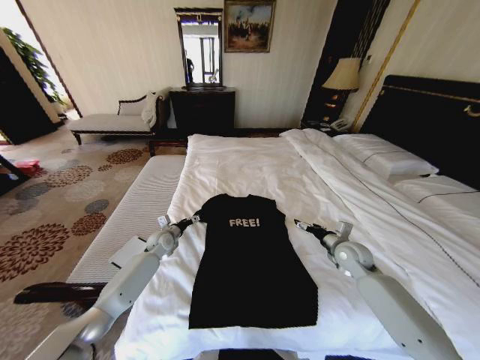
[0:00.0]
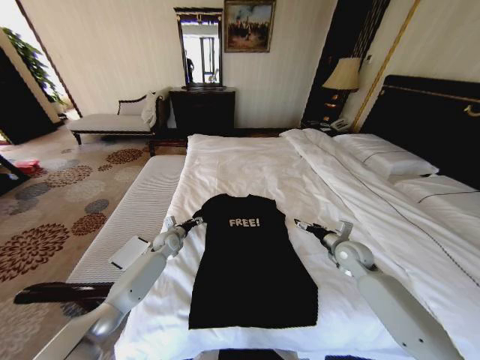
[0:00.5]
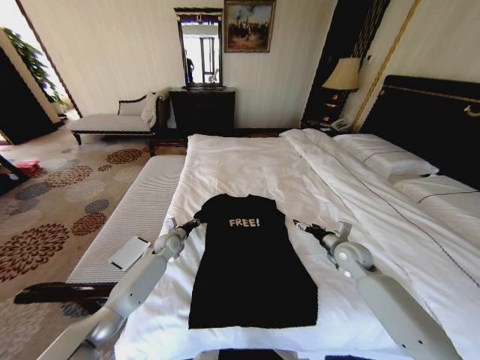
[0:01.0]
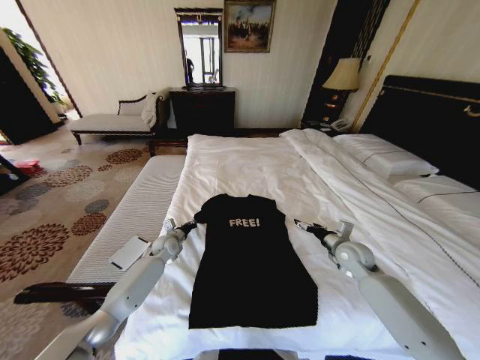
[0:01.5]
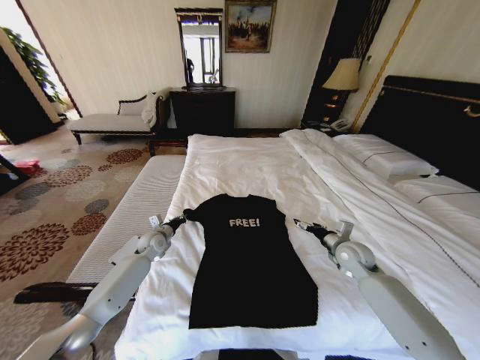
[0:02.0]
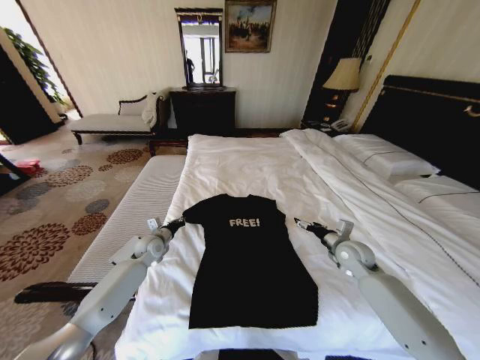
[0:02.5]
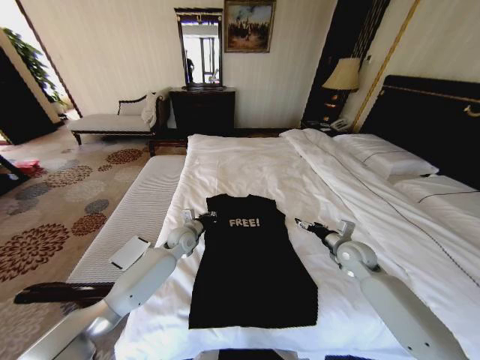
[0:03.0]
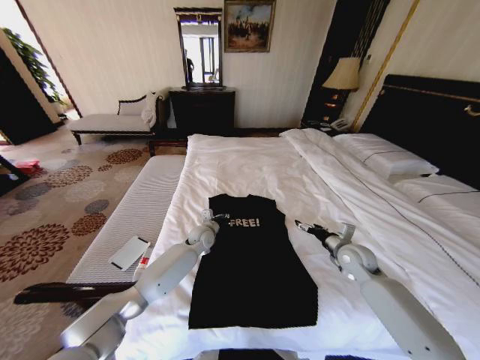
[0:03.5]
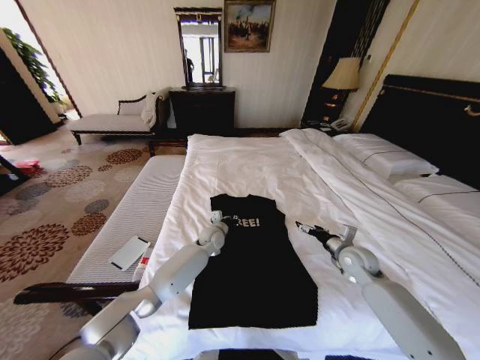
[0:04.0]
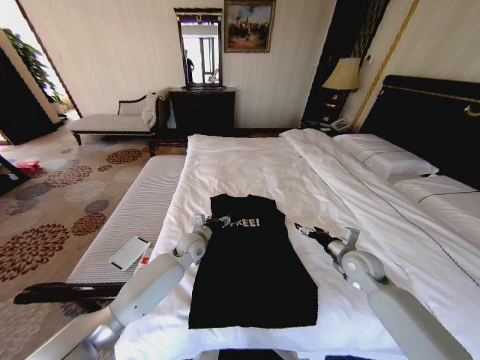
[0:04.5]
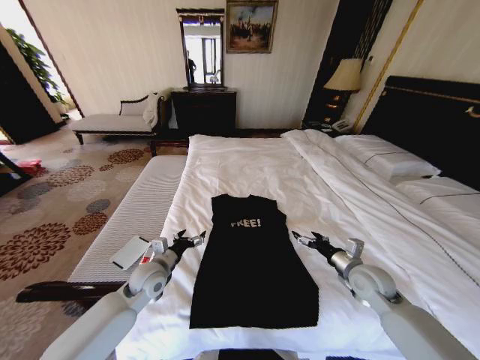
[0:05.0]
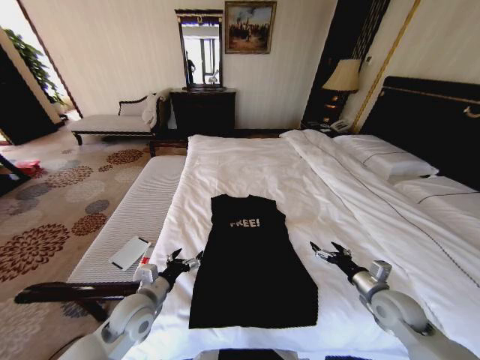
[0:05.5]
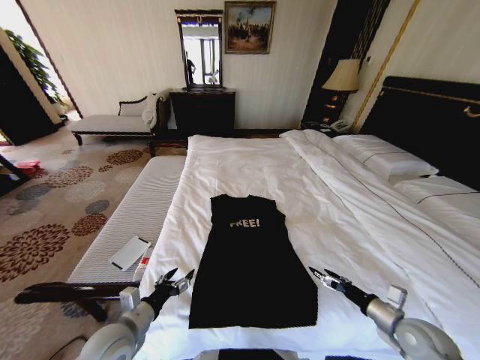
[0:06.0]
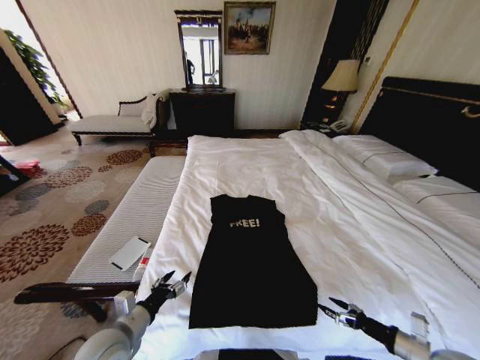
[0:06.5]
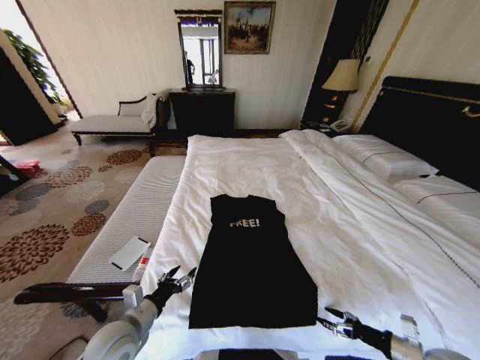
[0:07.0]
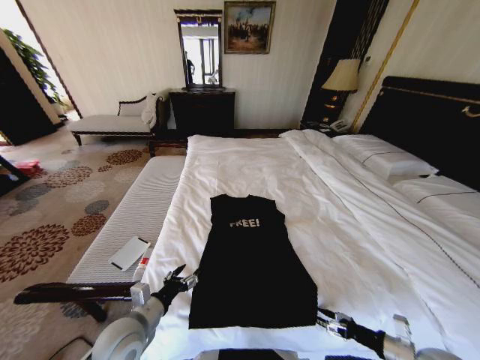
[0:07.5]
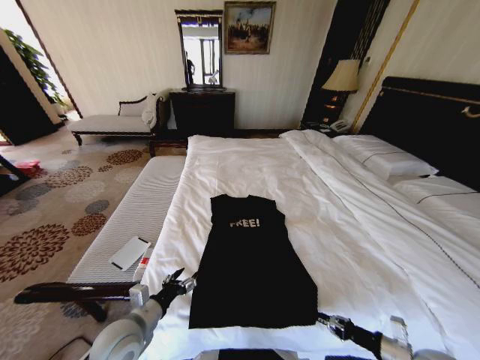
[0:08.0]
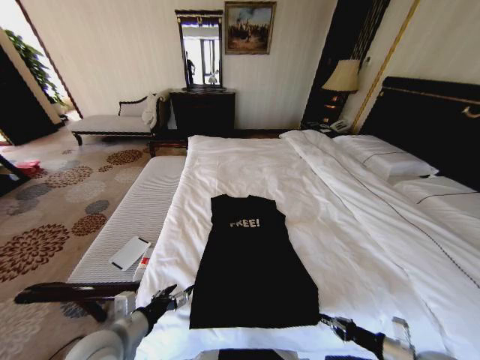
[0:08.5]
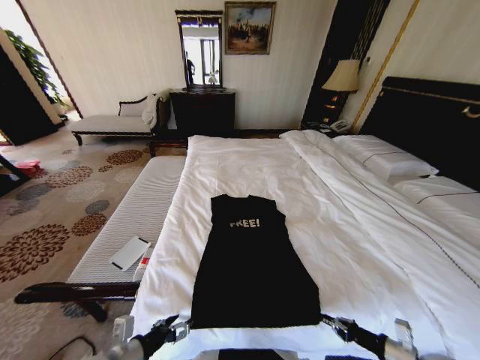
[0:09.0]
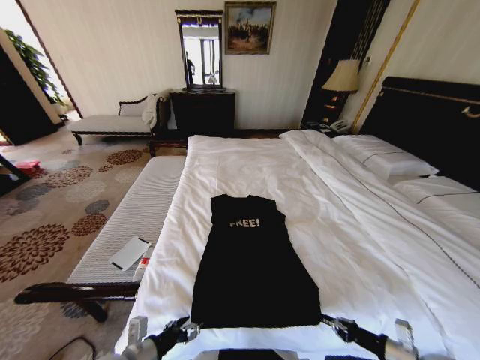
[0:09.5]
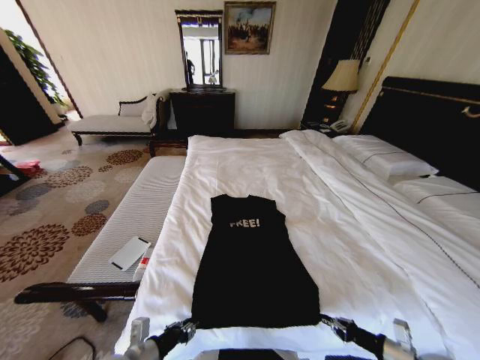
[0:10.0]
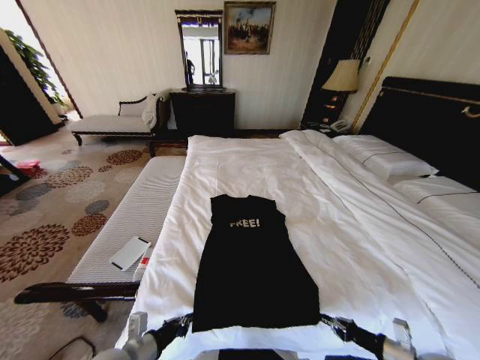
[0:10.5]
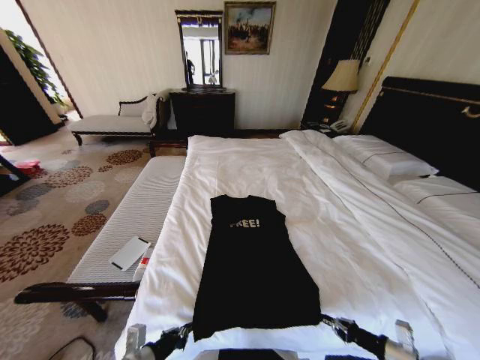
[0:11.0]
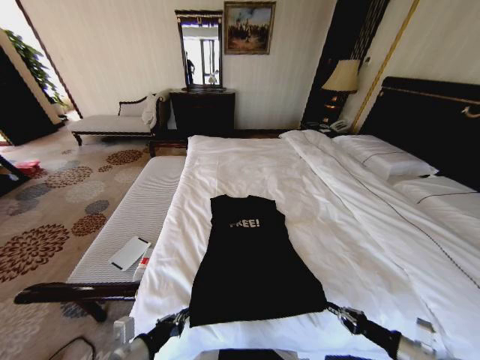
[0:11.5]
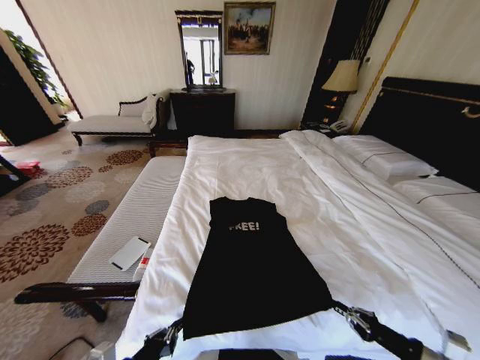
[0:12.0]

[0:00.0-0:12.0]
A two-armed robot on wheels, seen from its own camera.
Task of the whole recording: Fold the clothes on the bed.
0:00.0 to 0:02.0: The left gripper closes its fingers.
0:02.0 to 0:04.0: The left gripper shifts roughly 25 cm to the right.
0:04.0 to 0:06.0: The right gripper shifts approximately 20 cm backward, while the left gripper travels backward and to the left by some 35 cm, and opens up.
0:06.0 to 0:08.0: The right gripper is displaced backward by roughly 5 cm, and closes its fingers.
0:08.0 to 0:10.0: The left gripper shifts roughly 5 cm backward, and closes its fingers.
0:10.0 to 0:12.0: The left gripper heads upward and backward, covering about 10 cm, and closes its fingers, while the right gripper is displaced upward by about 10 cm.

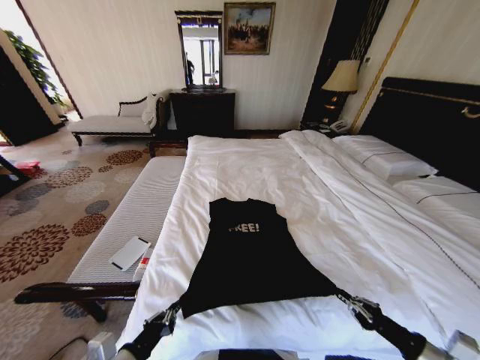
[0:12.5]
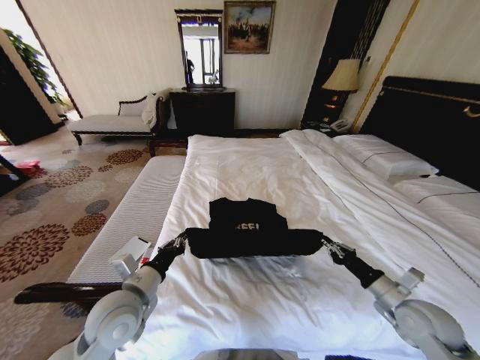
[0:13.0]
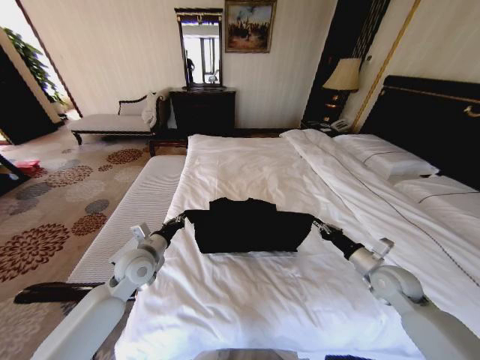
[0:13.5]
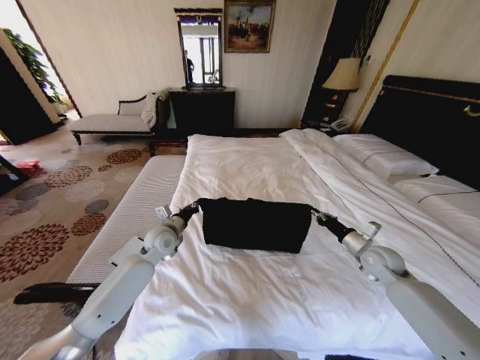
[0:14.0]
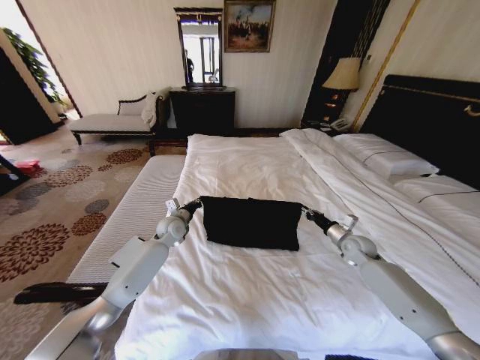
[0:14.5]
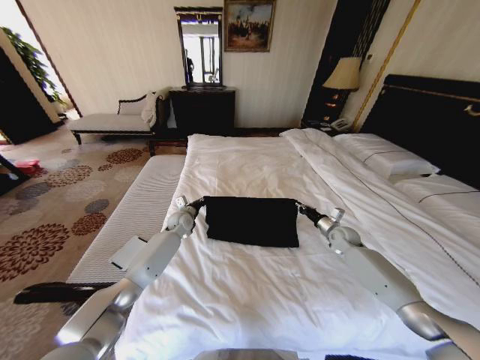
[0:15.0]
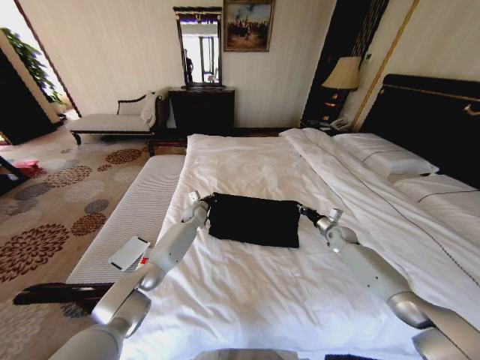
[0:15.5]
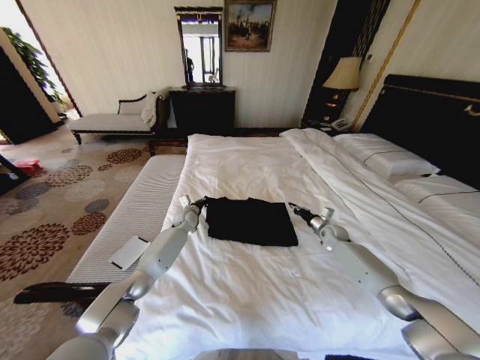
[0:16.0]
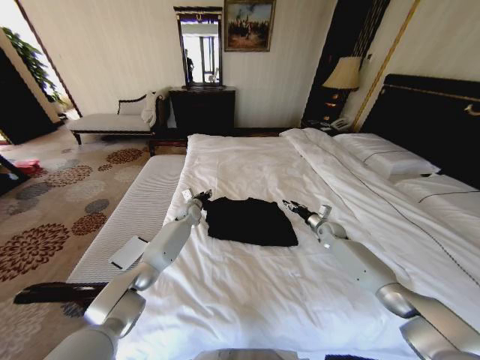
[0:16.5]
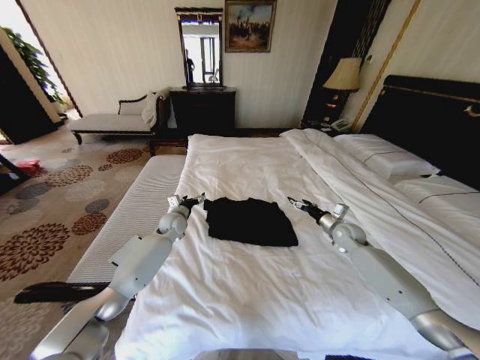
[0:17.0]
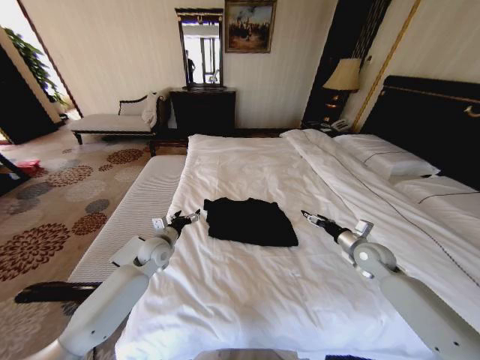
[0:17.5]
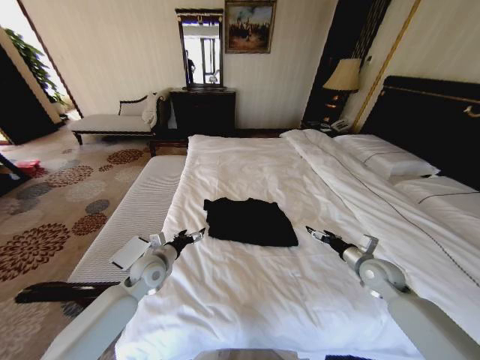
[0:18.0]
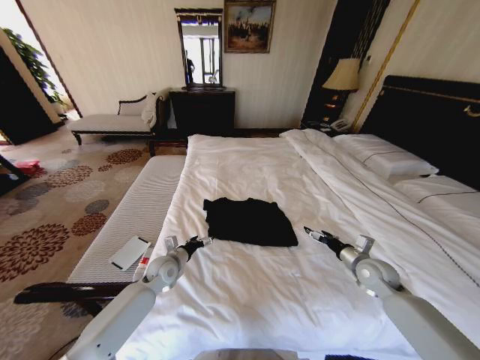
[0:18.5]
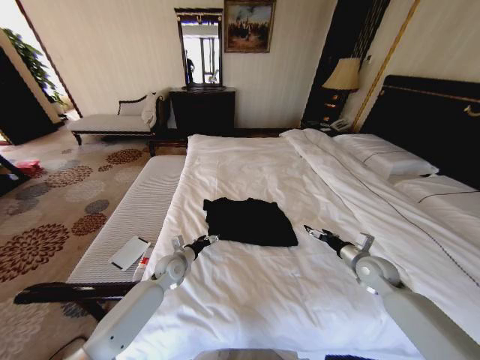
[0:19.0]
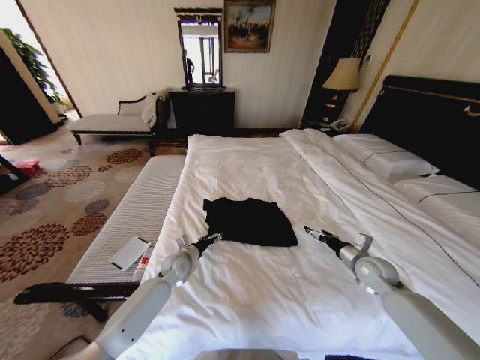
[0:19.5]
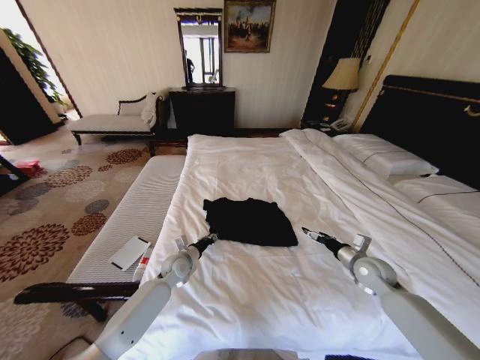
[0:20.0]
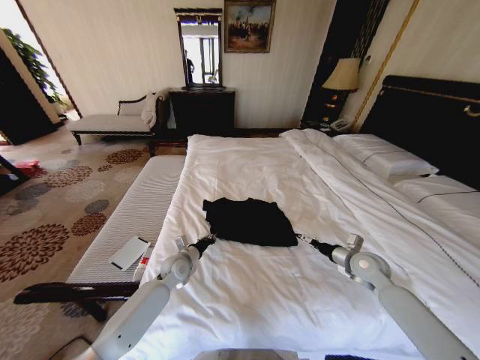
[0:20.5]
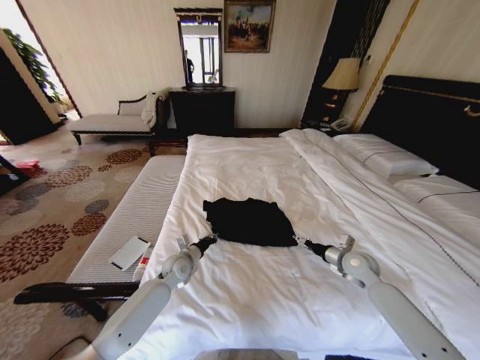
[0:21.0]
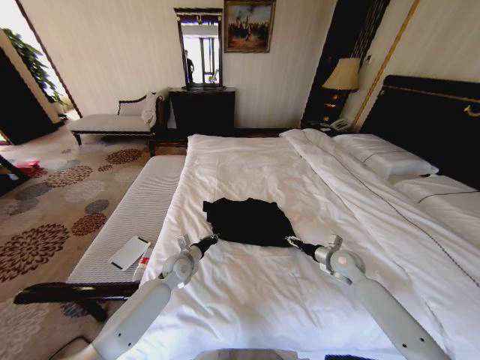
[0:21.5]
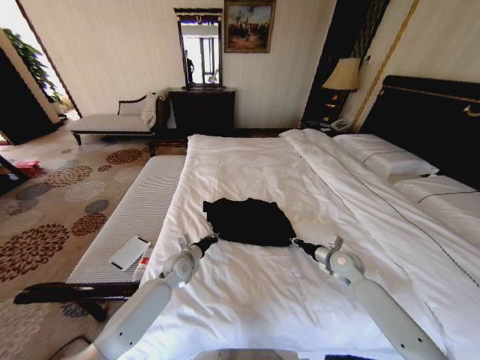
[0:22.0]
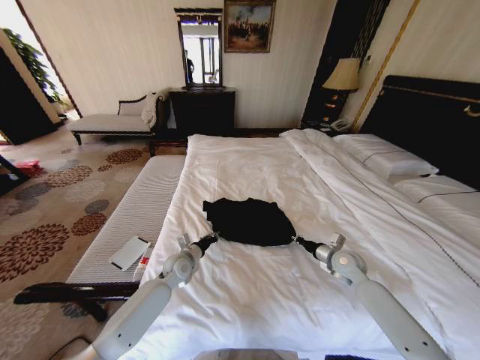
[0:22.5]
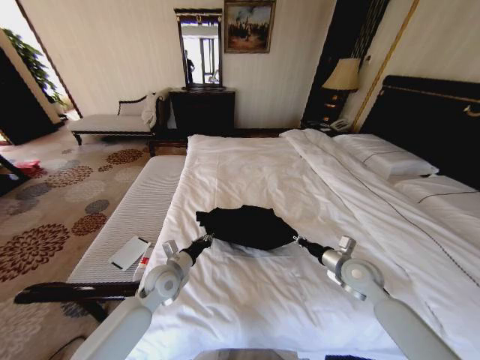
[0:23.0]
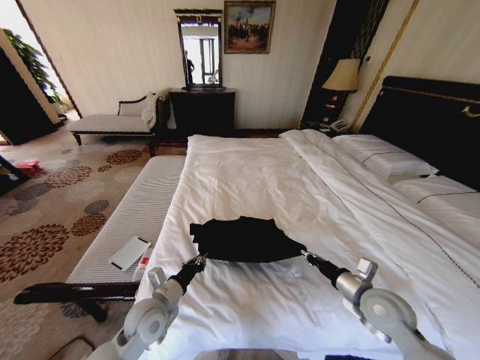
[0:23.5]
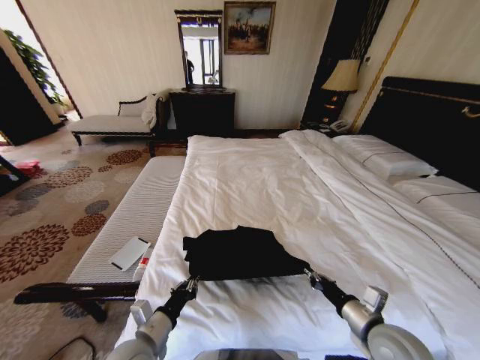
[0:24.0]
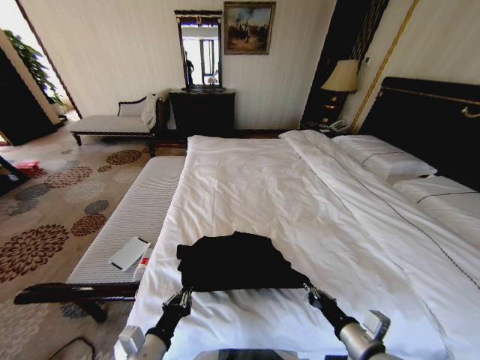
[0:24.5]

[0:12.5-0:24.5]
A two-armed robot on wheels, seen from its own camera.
Task of the whole recording: Fold the clothes on the bed.
0:12.5 to 0:14.5: Both grippers travel together forward, about 35 cm.
0:14.5 to 0:16.5: Both grippers travel together forward, some 10 cm. The right gripper opens, while the left gripper opens up.
0:16.5 to 0:18.5: Both grippers travel together backward, some 20 cm. The left gripper opens its fingers, while the right gripper opens.
0:18.5 to 0:20.5: The left gripper closes.
0:20.5 to 0:22.5: The right gripper changes place by roughly 5 cm, and closes.
0:22.5 to 0:24.5: The grippers both shift backward by approximately 25 cm.

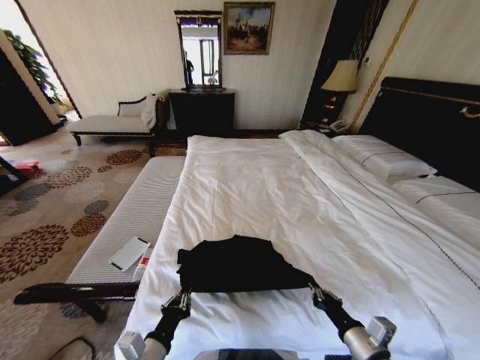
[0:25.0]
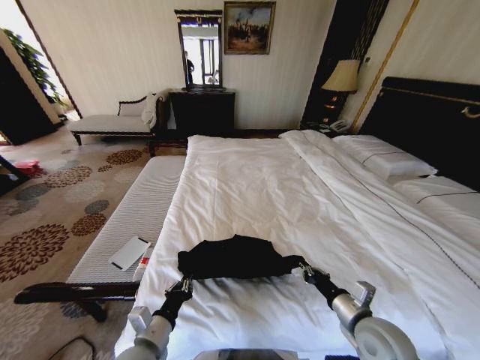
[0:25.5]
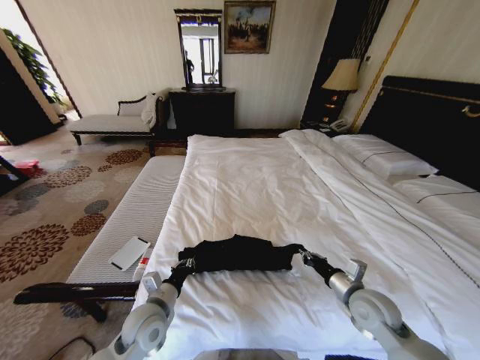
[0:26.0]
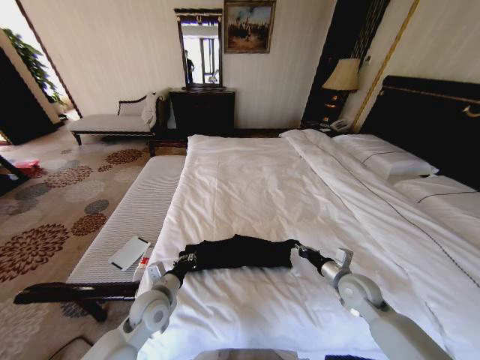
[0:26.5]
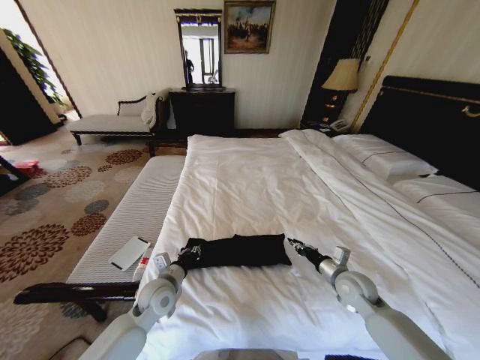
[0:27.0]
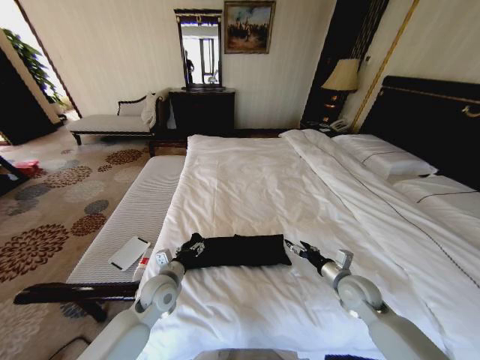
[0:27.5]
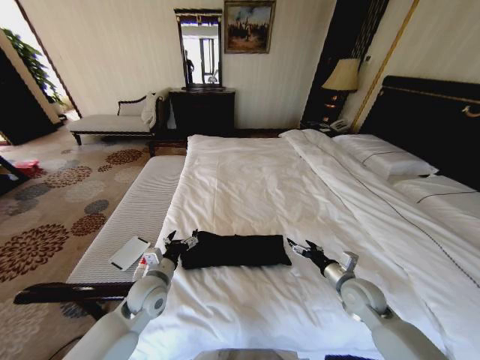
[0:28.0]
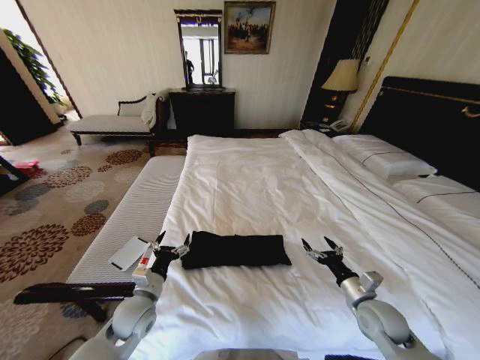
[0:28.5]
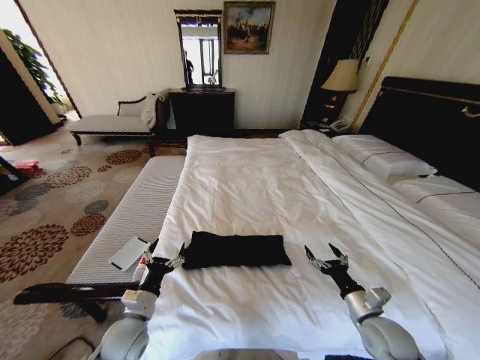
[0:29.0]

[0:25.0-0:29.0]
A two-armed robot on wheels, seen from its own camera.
Task of the whole recording: Fold the clothes on the bed.
0:25.0 to 0:27.0: Both grippers travel together forward, roughly 20 cm.
0:27.0 to 0:29.0: The right gripper shifts some 10 cm backward, and opens its fingers. The left gripper travels backward and to the left by some 10 cm, and opens its fingers.
